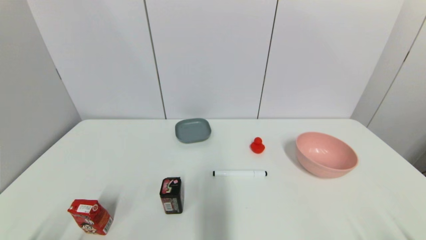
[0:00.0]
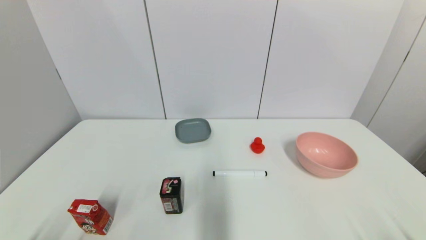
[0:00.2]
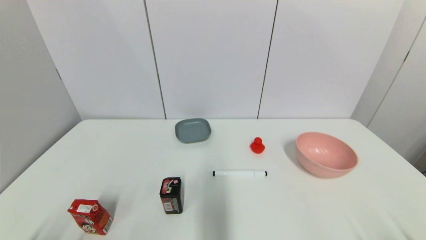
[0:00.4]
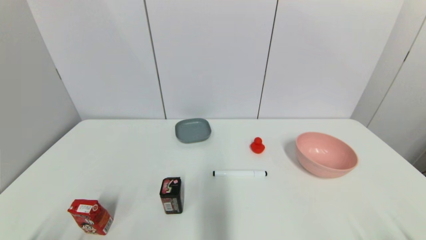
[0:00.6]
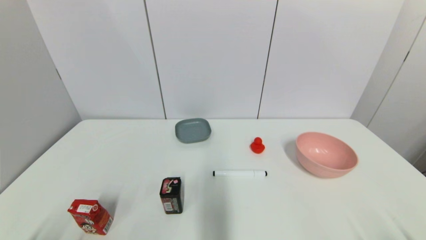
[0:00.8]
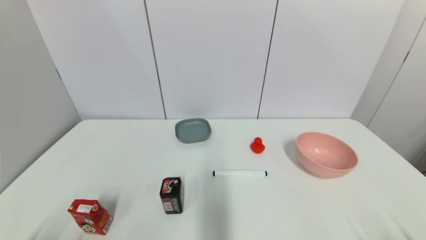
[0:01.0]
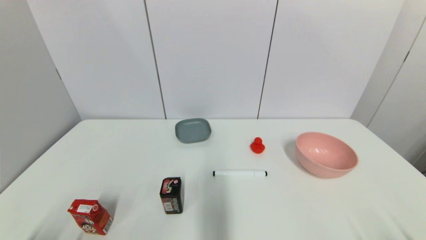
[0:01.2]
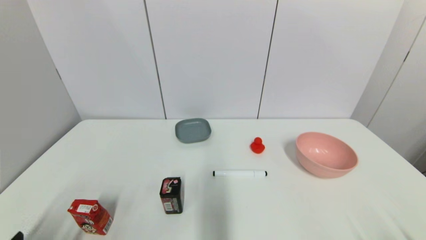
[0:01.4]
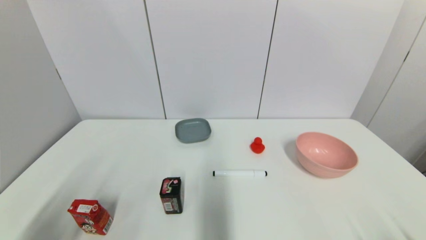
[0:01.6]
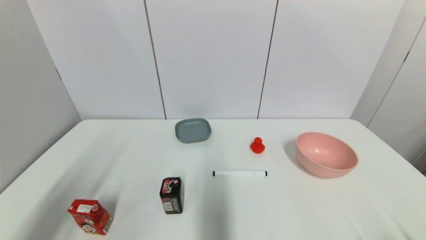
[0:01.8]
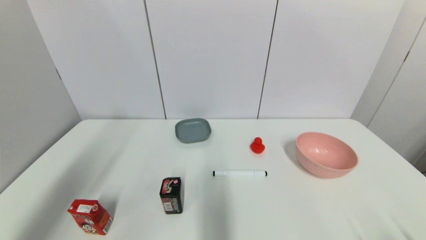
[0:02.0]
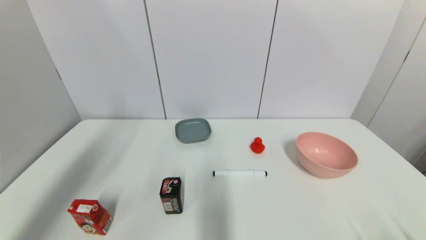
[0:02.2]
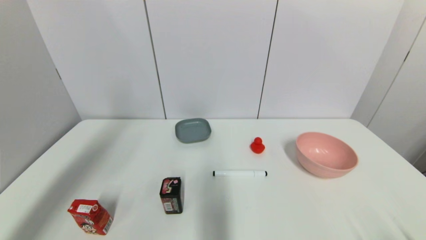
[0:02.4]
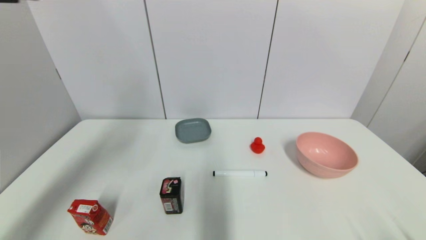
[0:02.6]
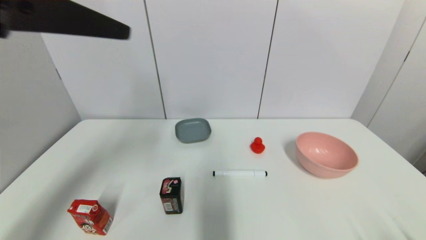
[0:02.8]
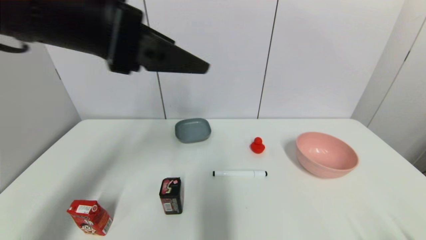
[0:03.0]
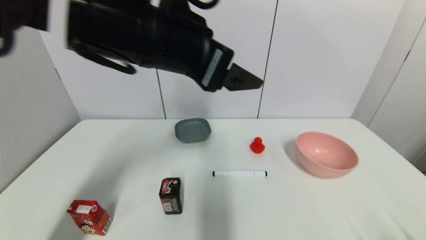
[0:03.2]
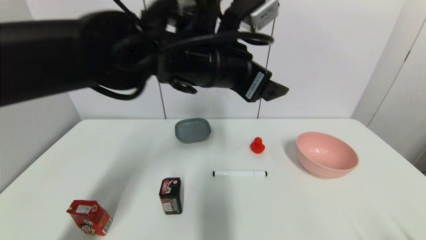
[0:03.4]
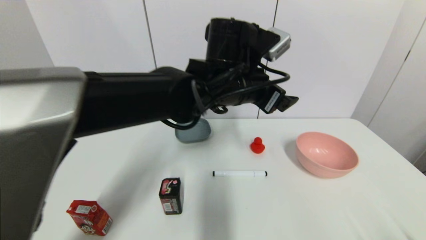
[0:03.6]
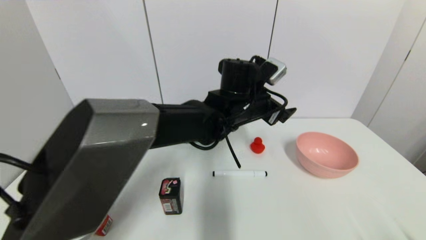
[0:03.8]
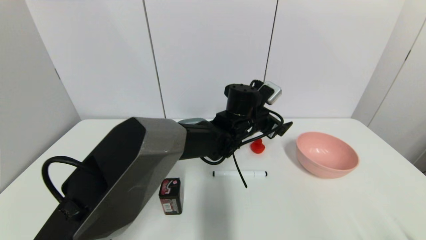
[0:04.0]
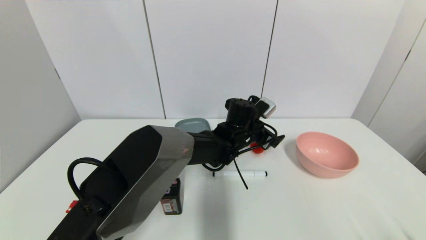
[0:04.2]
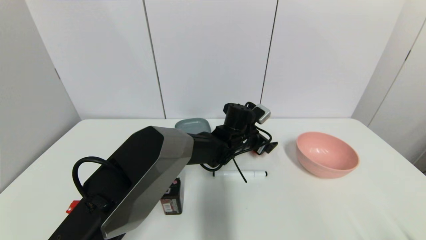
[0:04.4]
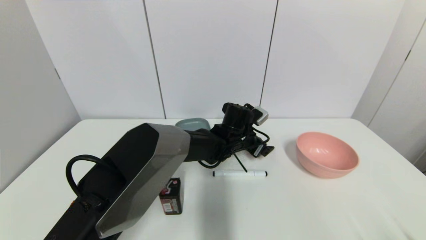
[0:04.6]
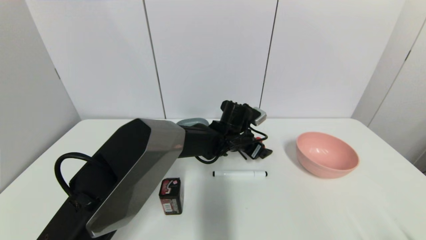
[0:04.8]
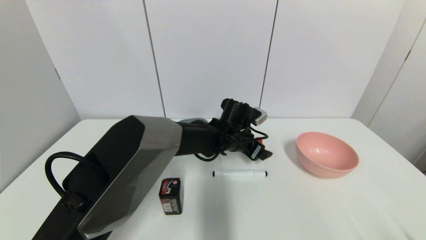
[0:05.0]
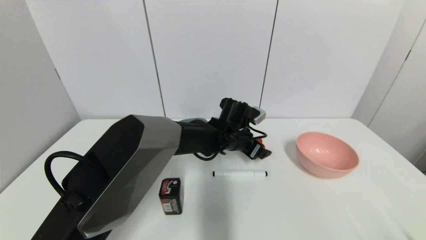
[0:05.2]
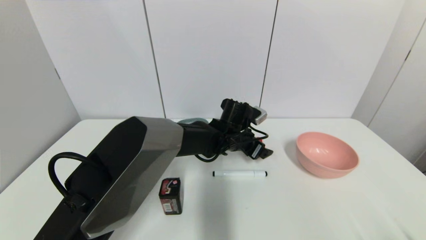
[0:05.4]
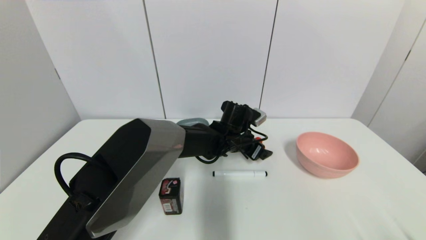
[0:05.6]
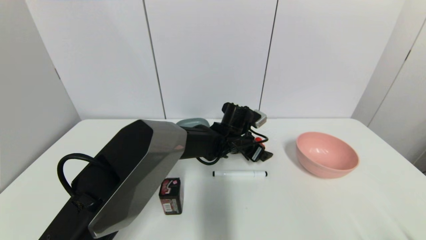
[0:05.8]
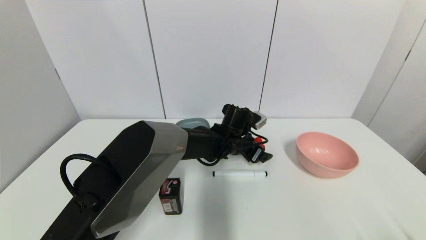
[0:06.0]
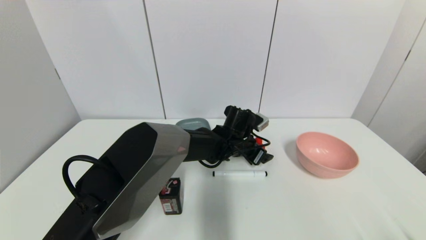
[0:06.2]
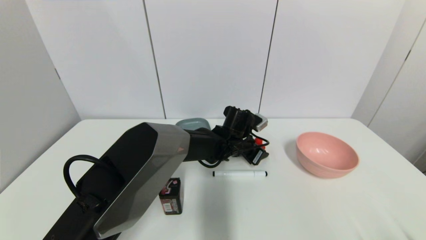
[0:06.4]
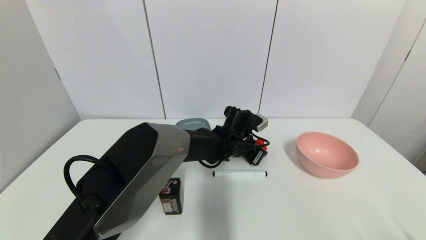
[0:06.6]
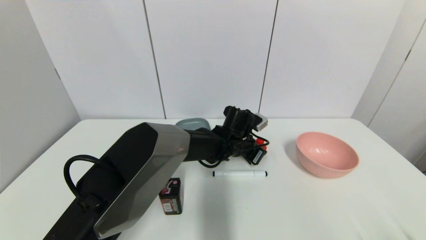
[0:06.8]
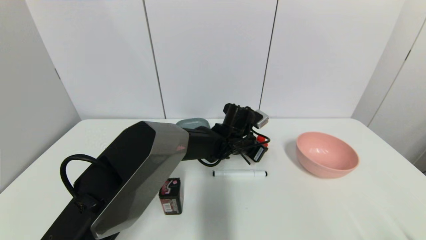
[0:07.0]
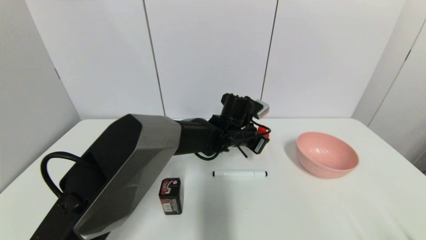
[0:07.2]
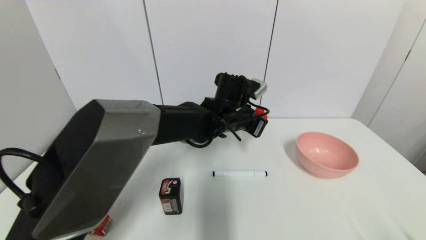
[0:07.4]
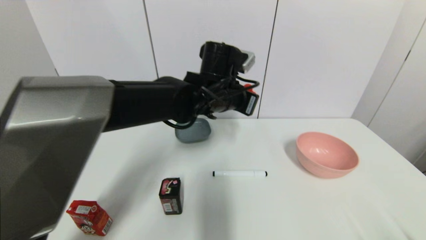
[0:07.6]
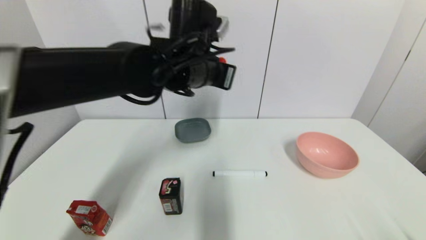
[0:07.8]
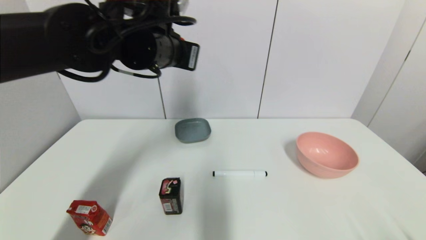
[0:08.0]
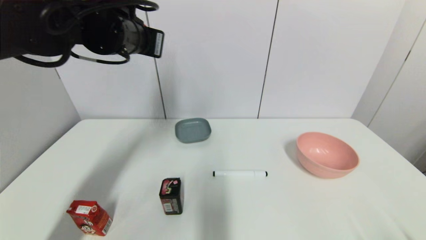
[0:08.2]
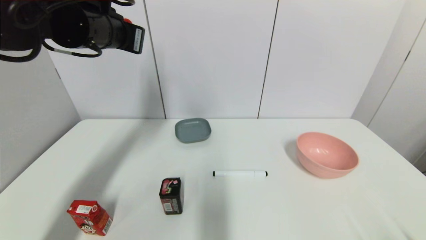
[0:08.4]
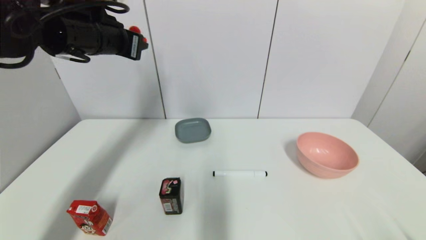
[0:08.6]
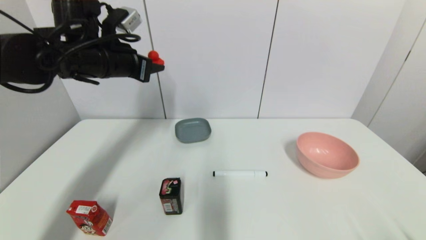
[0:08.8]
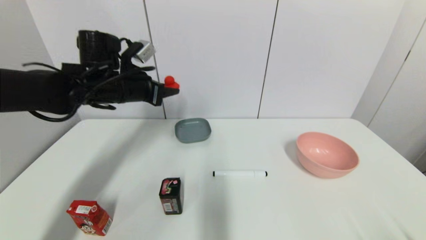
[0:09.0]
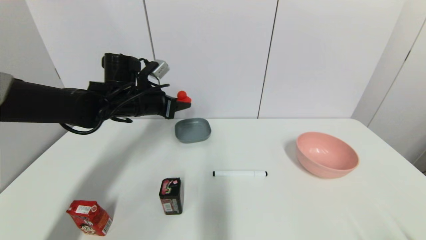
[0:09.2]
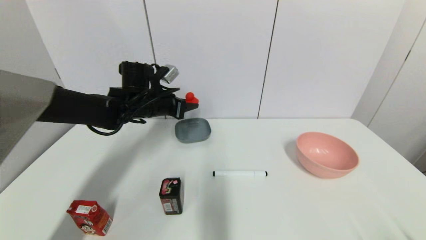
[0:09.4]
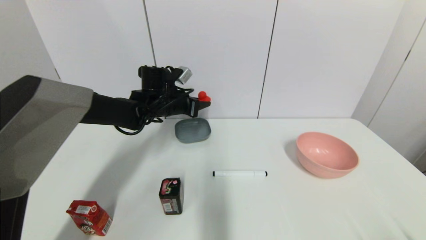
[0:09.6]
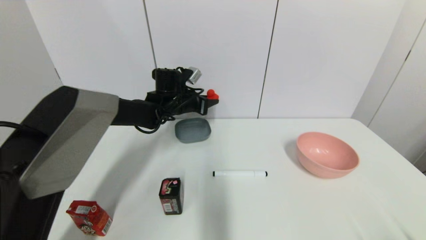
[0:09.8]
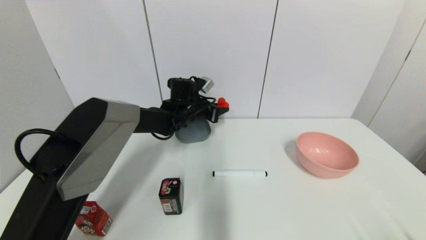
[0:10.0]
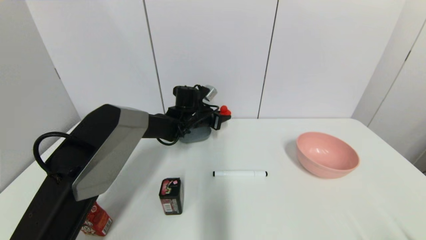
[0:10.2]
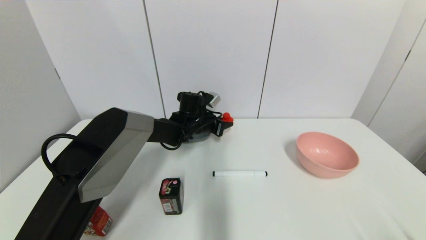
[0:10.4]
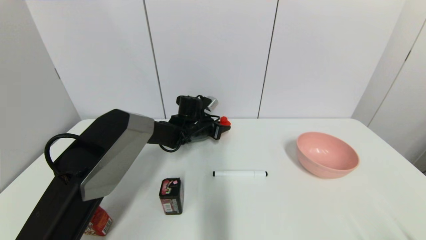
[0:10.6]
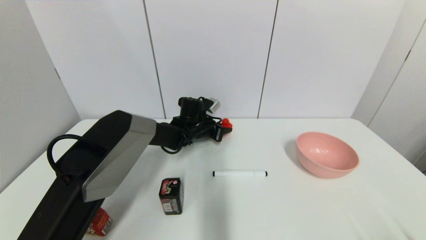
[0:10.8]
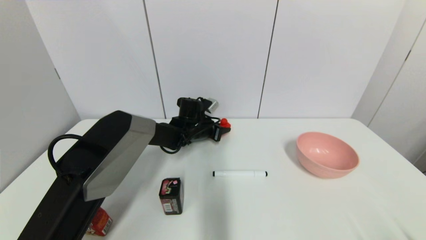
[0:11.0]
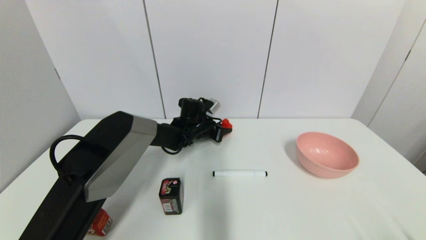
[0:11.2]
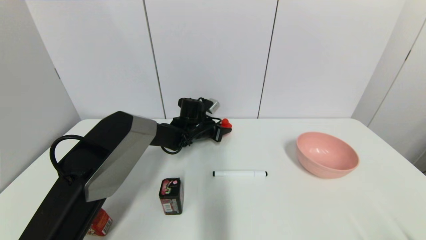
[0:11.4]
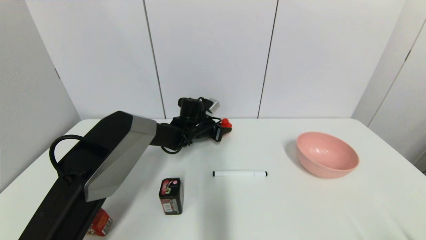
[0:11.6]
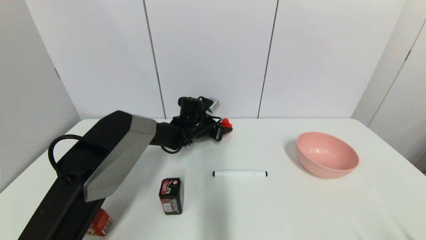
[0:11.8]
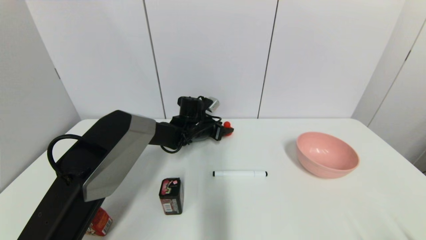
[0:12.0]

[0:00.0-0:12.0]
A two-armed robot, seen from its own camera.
Step, 0:01.4 to 0:07.0: Grasp the red duck with left gripper.
Step, 0:07.2 to 0:12.0: Place the red duck on the table with left gripper.
0:00.0 to 0:01.6: The left gripper is displaced upward by roughly 15 cm.
0:01.6 to 0:03.0: The left gripper travels upward, forward and to the right by roughly 30 cm.
0:03.0 to 0:04.4: The left gripper moves downward, to the right and forward, approximately 40 cm.
0:04.4 to 0:06.0: The grippers stay close to where they were, moving slightly.
0:06.0 to 0:07.6: The left gripper travels upward by roughly 15 cm, and closes.
0:07.6 to 0:09.0: The left gripper is displaced to the left by roughly 20 cm.
0:09.0 to 0:10.4: The left gripper is displaced downward, to the right and forward by approximately 25 cm.
0:10.4 to 0:12.0: The left gripper opens its fingers.

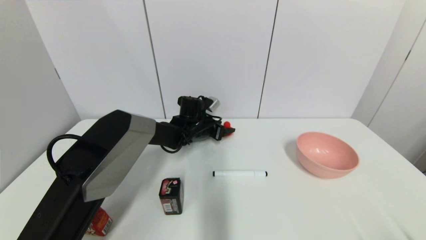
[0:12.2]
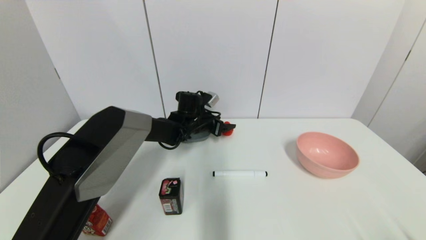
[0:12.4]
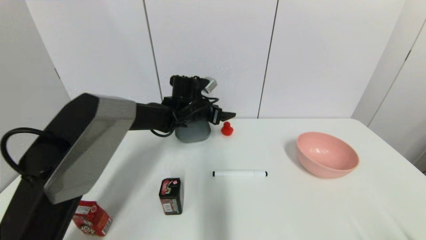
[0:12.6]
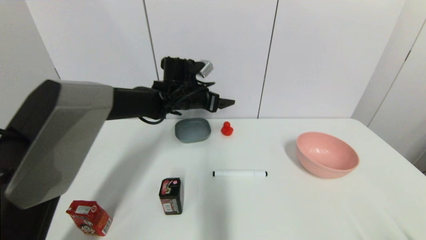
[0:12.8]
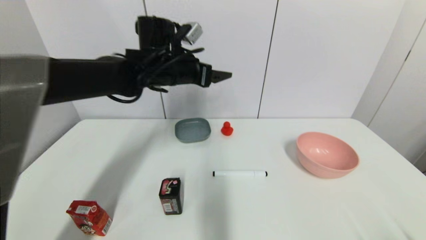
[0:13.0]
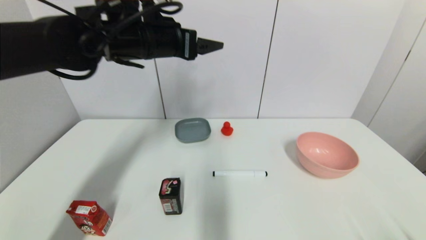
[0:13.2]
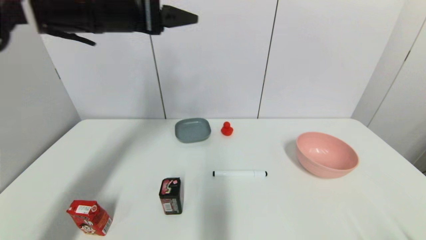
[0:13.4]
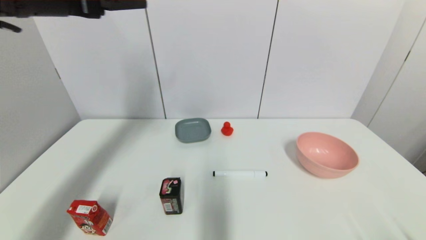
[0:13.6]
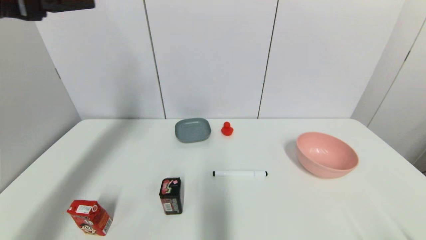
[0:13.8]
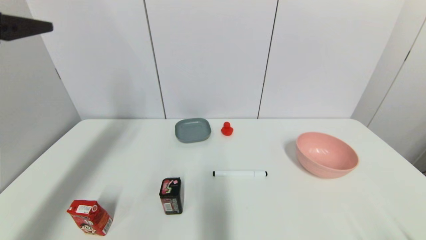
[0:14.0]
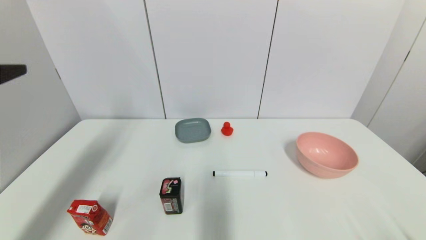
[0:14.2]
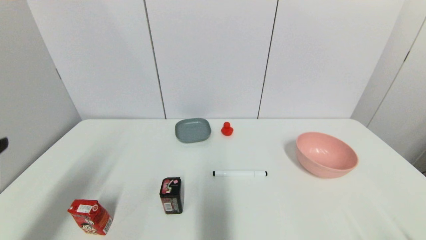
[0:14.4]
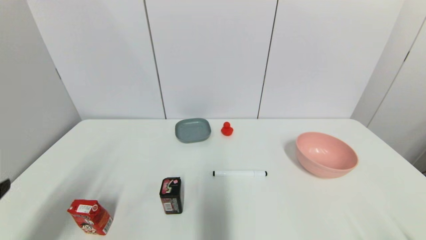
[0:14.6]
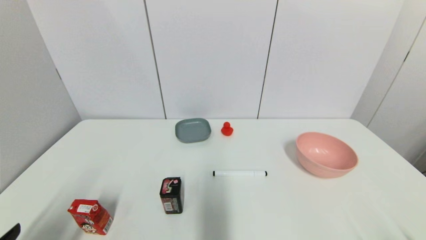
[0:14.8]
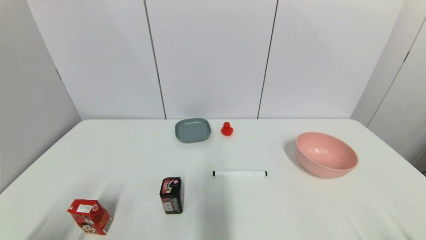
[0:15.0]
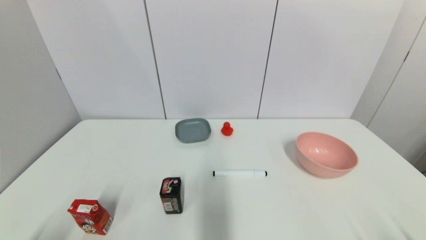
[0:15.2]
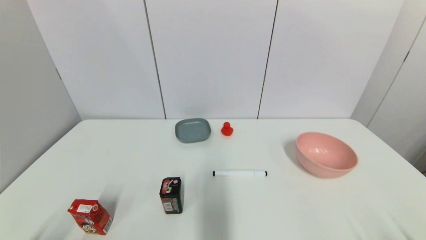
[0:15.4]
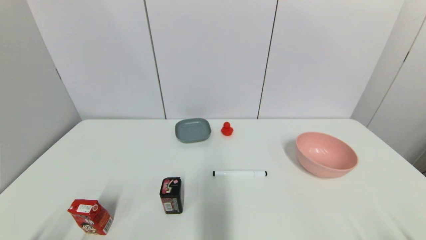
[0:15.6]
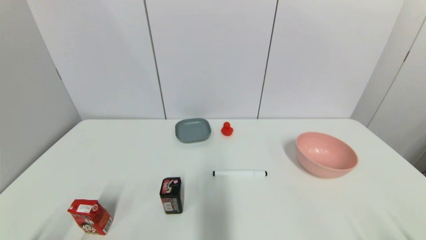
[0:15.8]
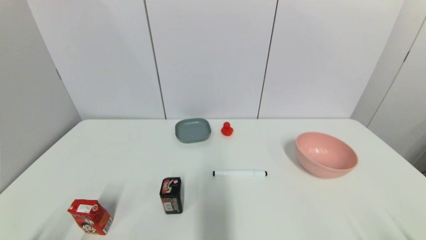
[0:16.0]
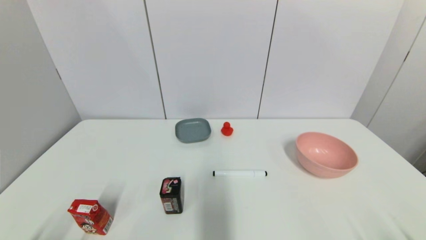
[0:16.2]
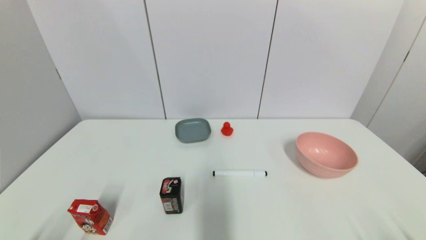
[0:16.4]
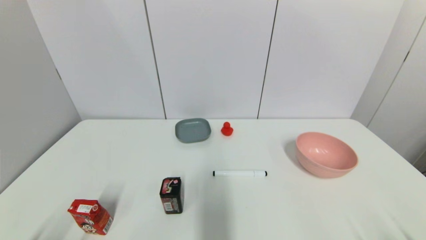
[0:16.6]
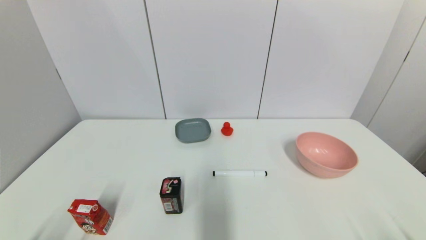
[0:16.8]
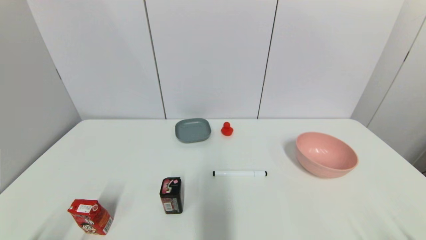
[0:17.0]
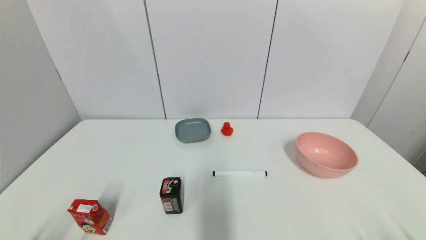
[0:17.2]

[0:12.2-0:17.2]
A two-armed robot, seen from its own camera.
0:12.2 to 0:13.8: The left gripper is displaced upward, backward and to the left by roughly 50 cm, and opens its fingers.
0:13.8 to 0:15.6: The left gripper moves downward and backward, roughly 40 cm.
0:15.6 to 0:17.2: Both grippers stay about where they are.
